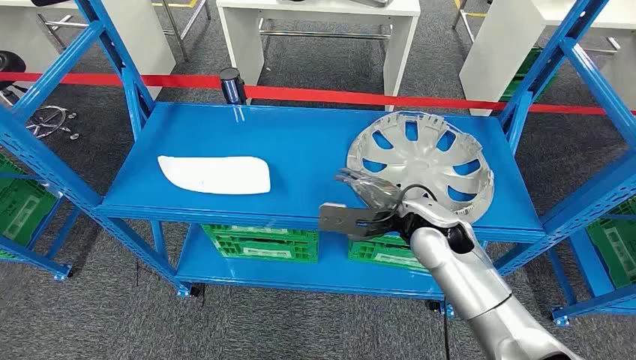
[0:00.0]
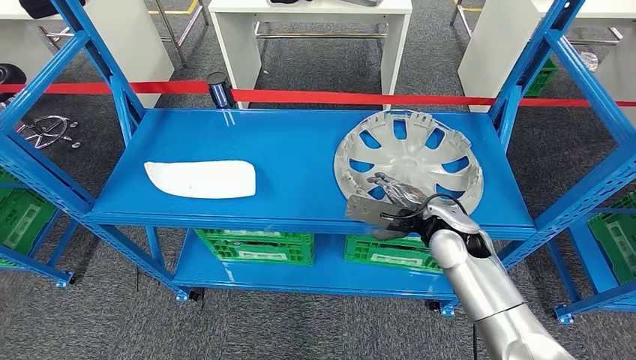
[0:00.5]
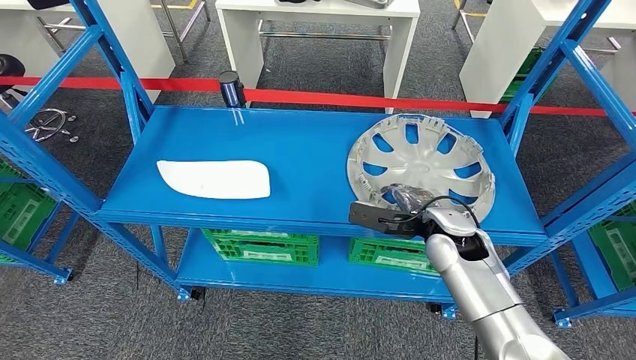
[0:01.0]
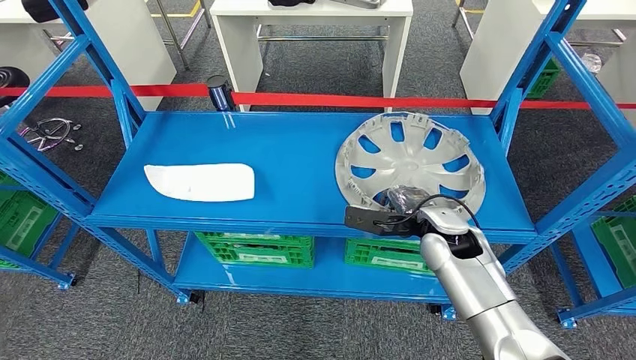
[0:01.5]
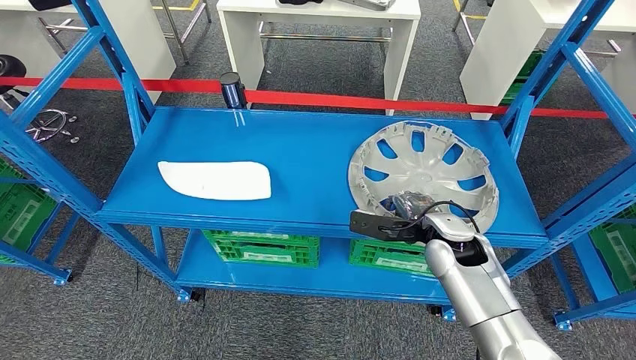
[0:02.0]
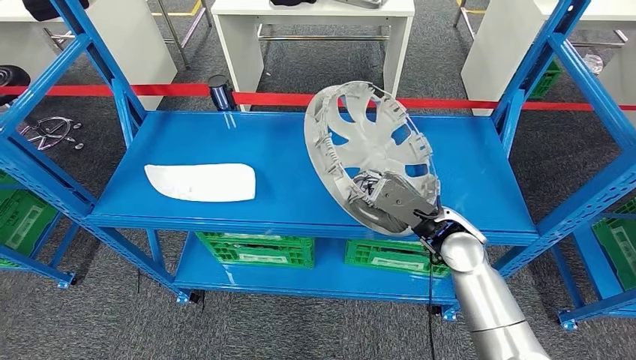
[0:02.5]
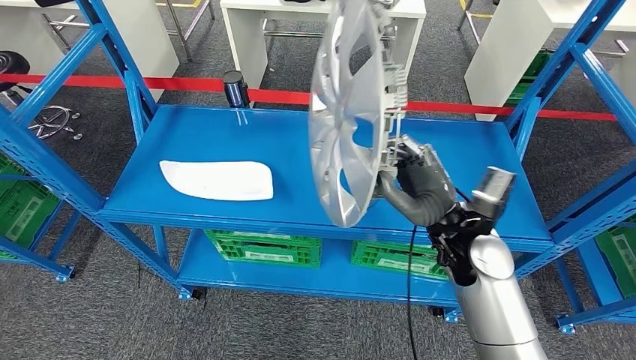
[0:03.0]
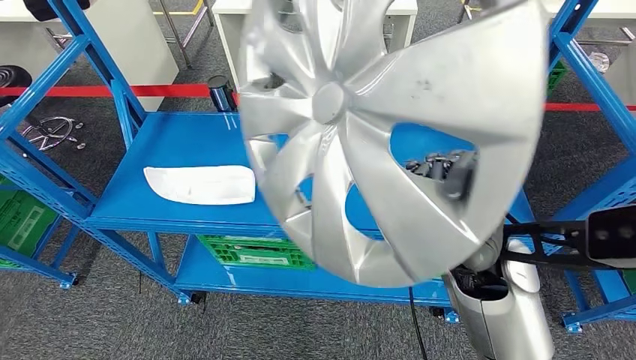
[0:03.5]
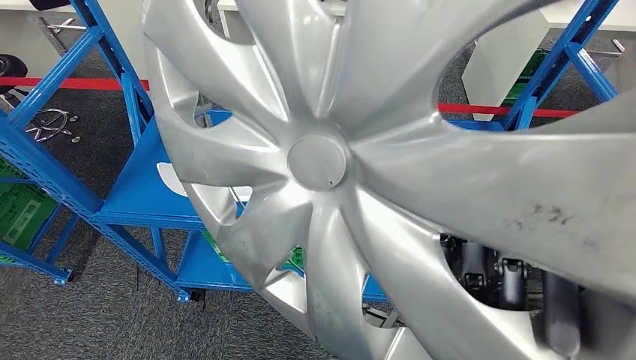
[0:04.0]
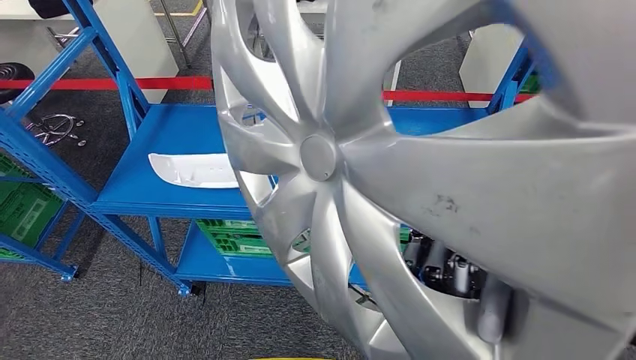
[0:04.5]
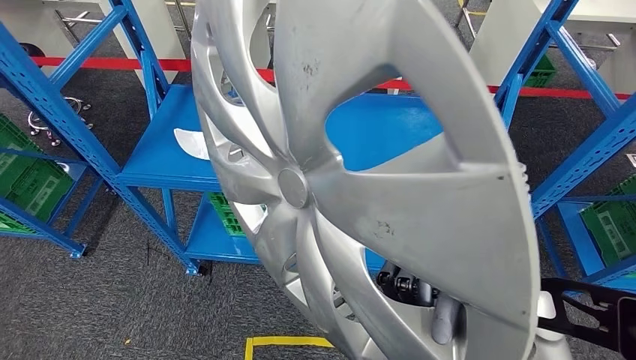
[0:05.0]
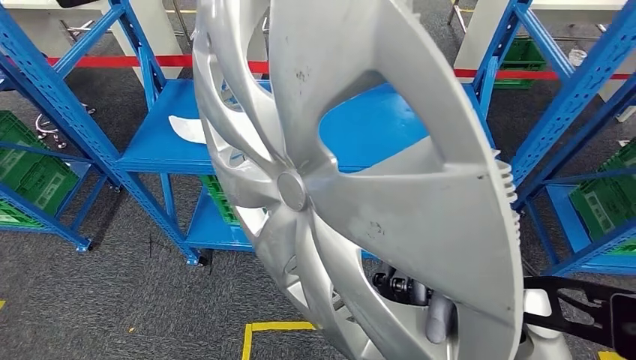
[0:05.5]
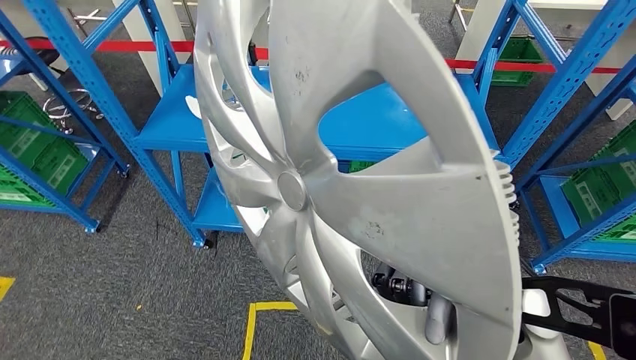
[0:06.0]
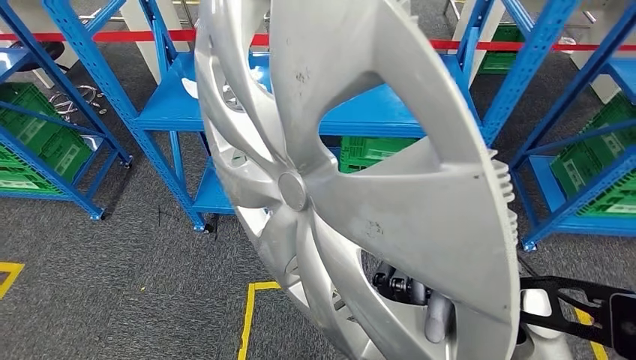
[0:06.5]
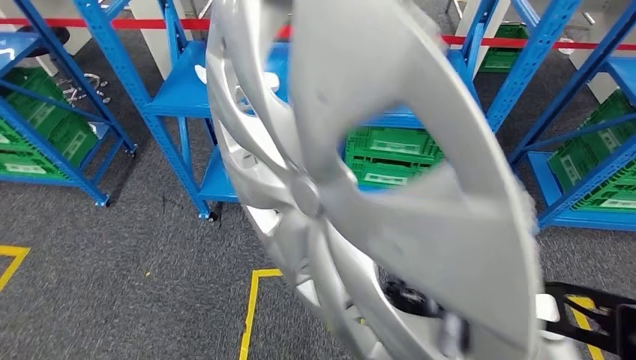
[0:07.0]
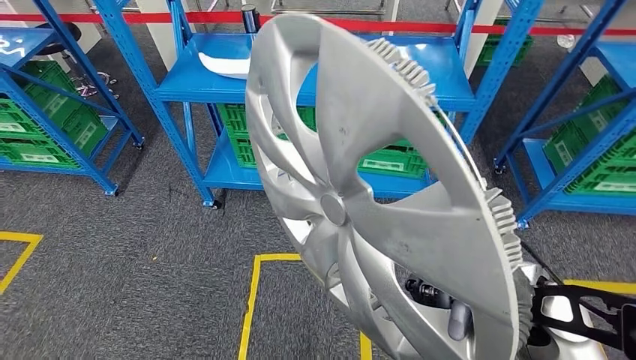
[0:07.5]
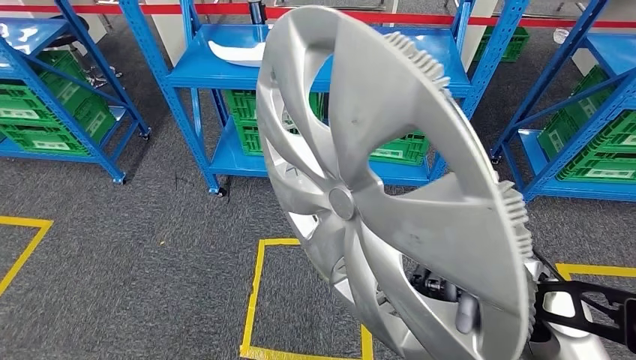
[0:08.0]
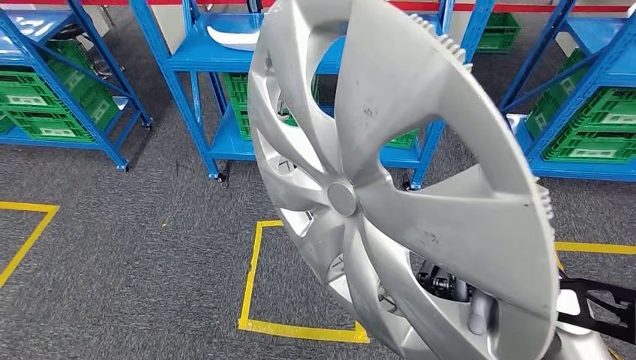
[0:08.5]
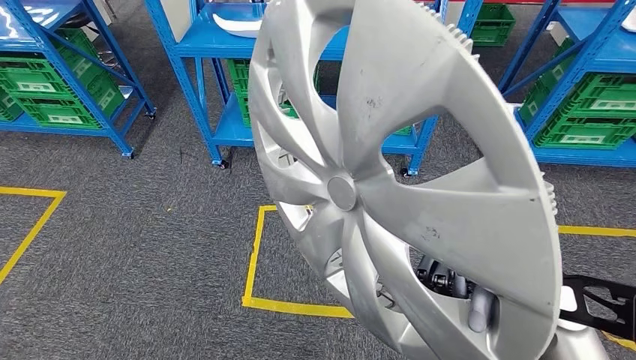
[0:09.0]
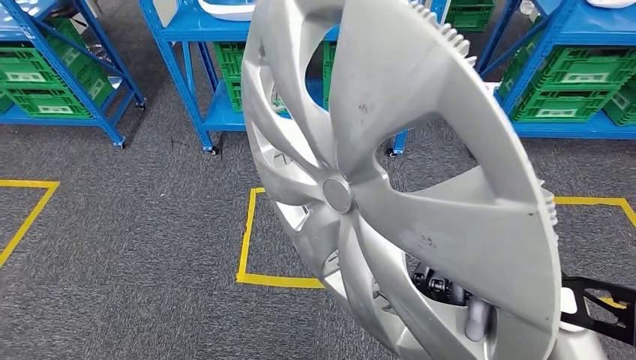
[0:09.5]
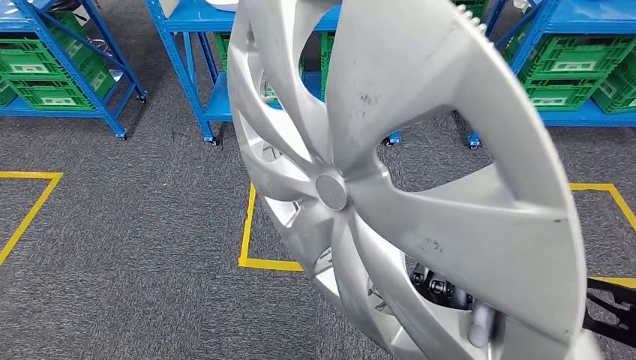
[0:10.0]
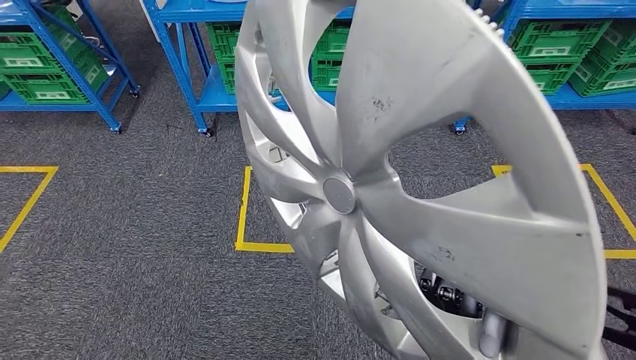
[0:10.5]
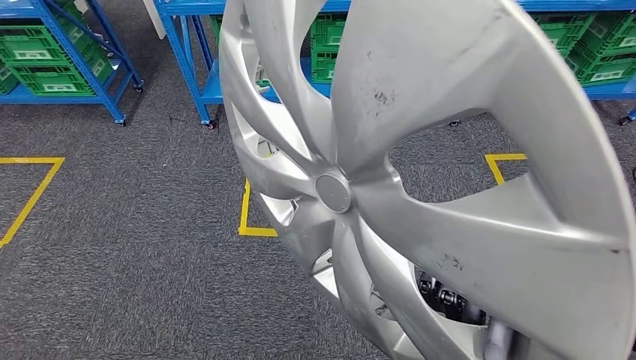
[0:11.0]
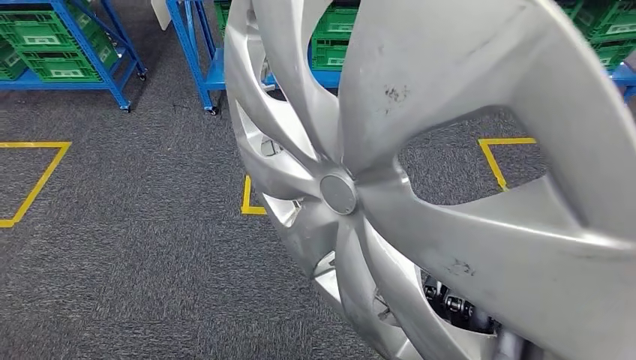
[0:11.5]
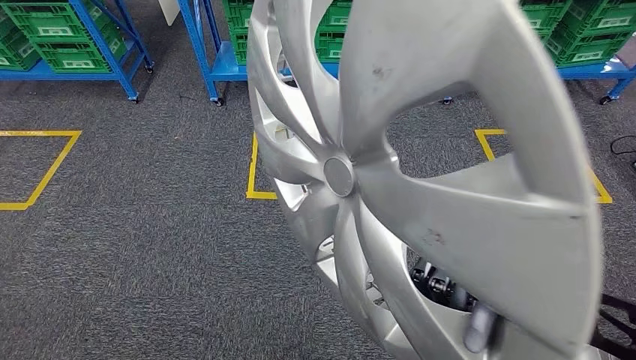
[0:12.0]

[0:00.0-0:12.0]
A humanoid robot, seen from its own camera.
Step, 0:00.0 to 0:03.0: Pick up the small parts from the shelf.

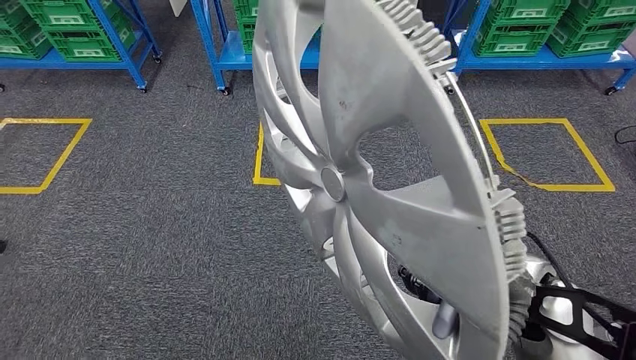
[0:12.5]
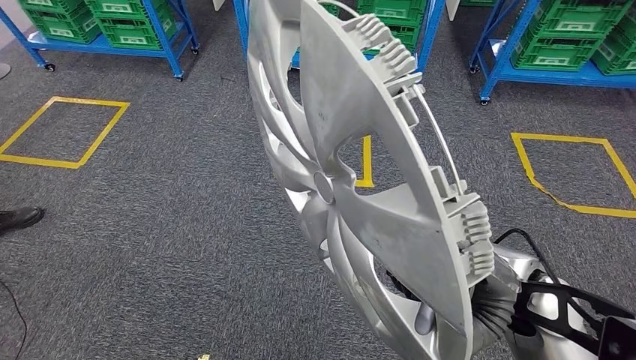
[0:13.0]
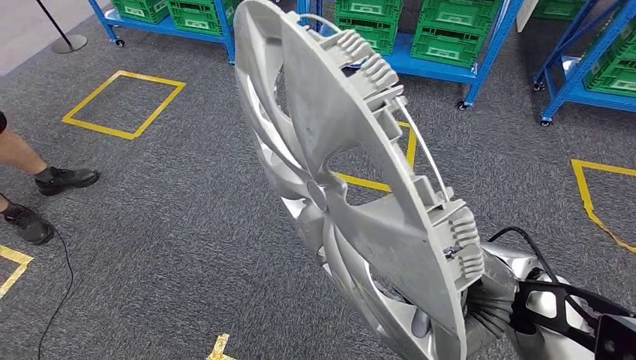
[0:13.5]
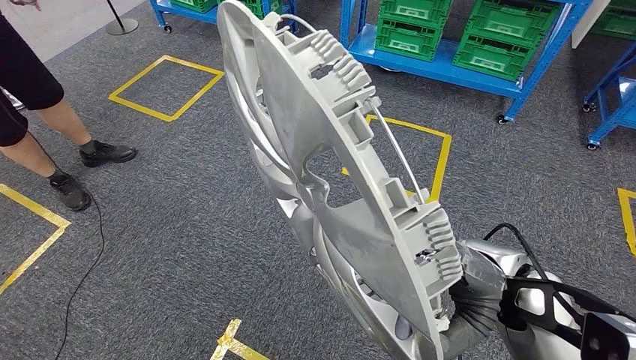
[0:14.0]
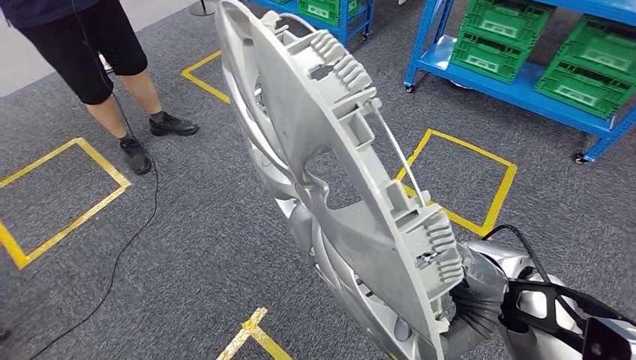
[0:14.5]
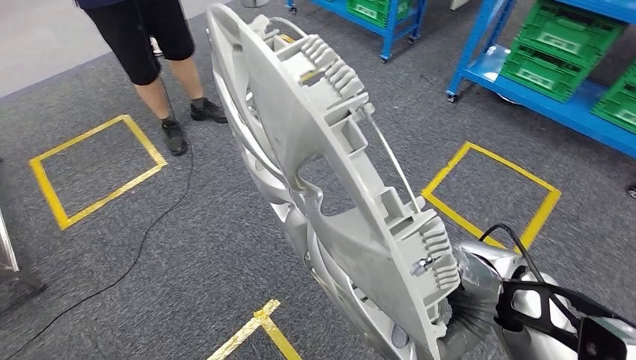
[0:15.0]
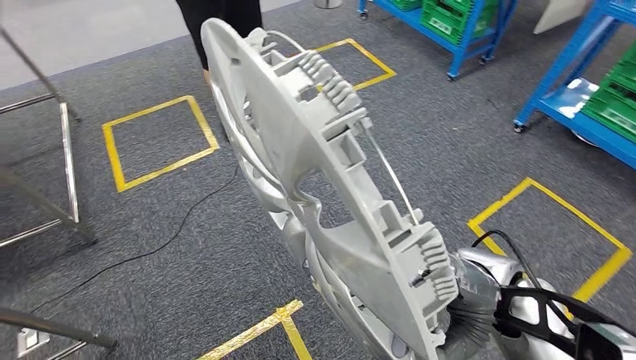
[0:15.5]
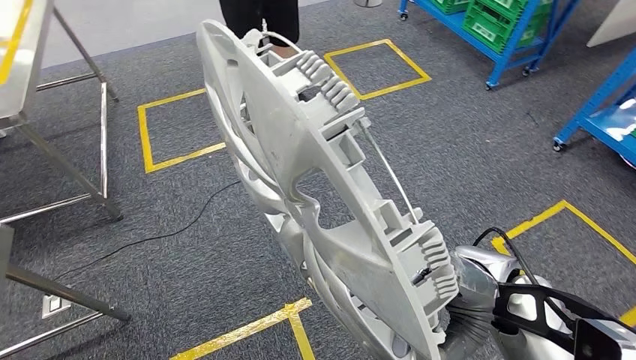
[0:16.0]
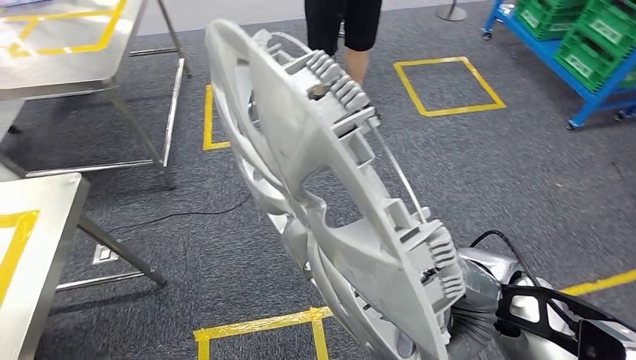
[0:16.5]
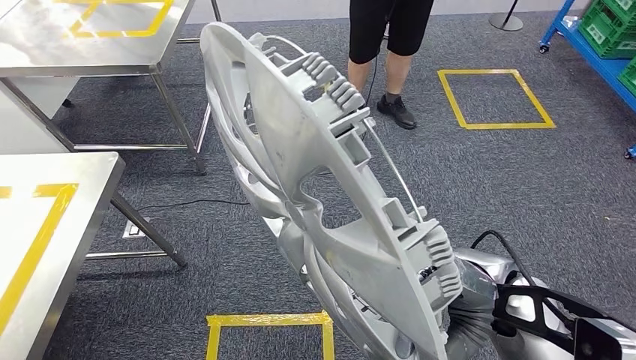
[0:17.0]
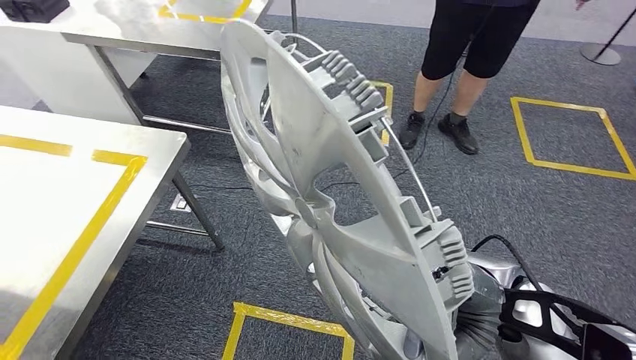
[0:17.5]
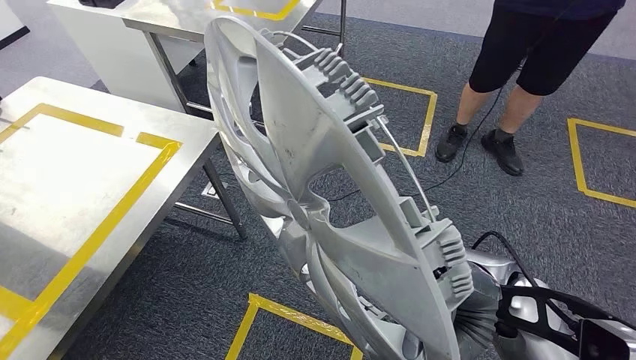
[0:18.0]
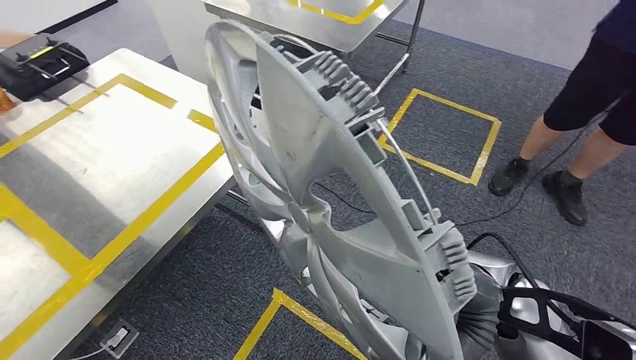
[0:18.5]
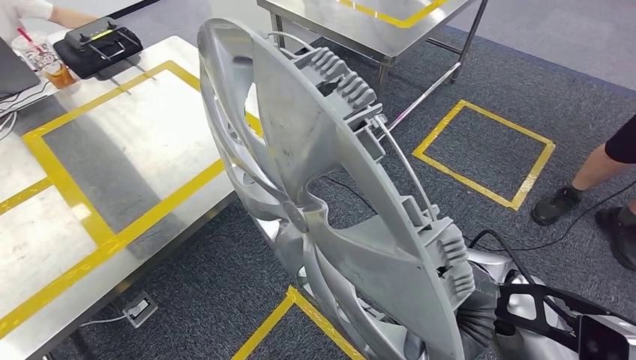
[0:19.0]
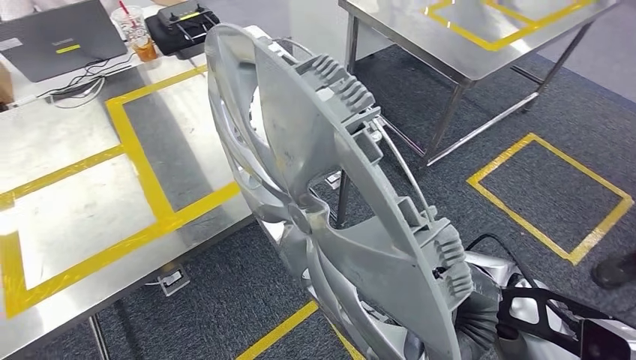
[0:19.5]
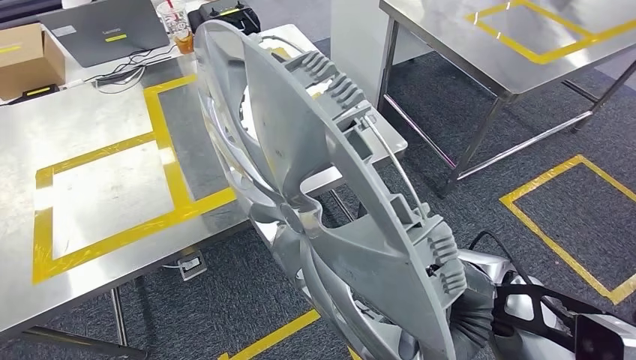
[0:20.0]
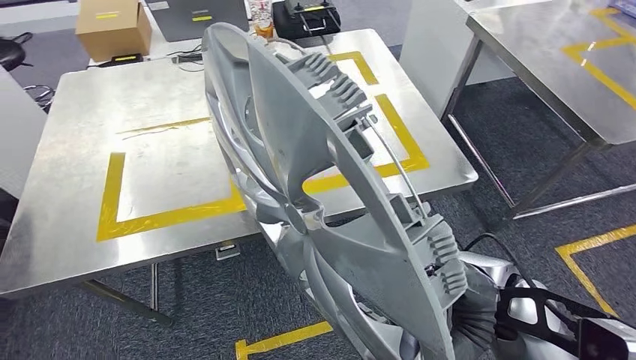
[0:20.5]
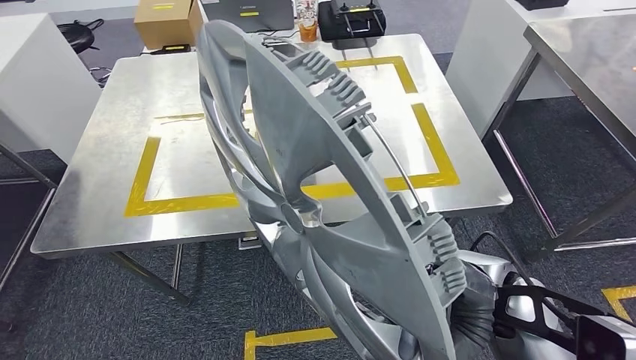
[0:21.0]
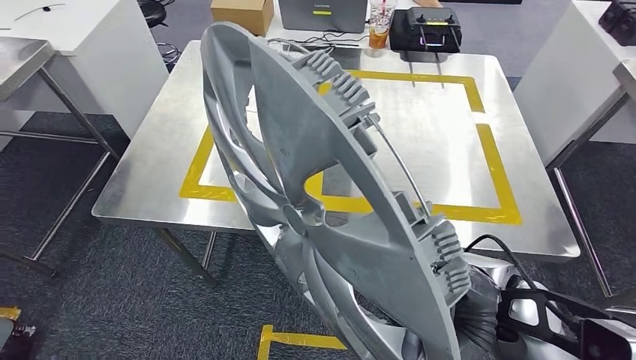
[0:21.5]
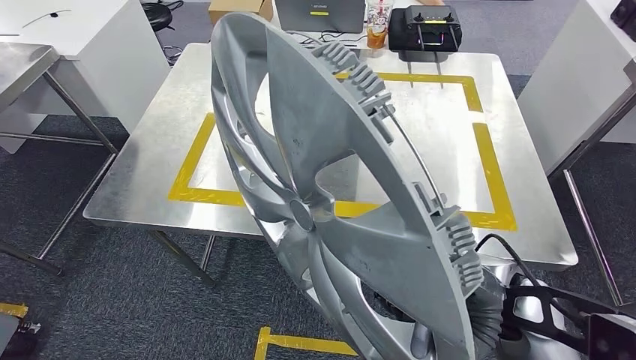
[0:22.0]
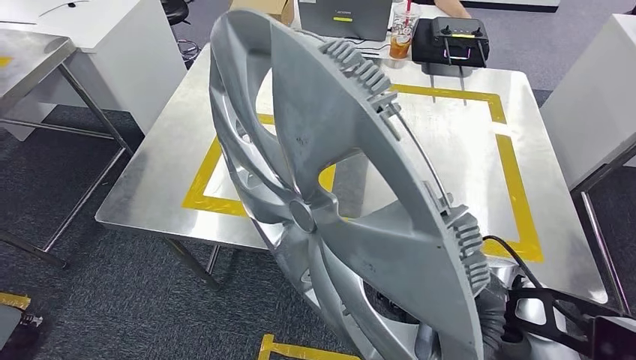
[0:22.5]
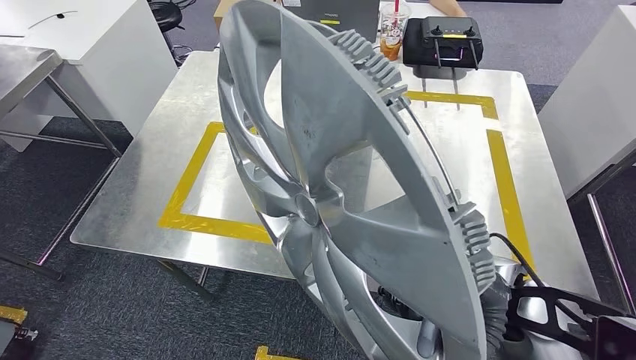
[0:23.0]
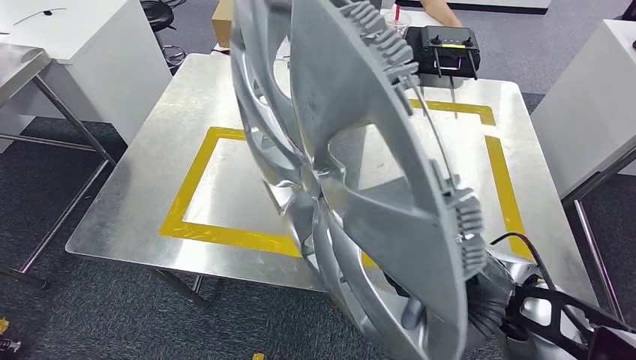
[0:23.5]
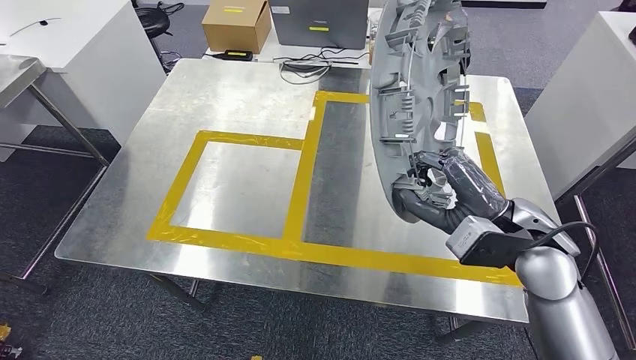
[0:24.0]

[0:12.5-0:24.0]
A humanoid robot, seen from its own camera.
Step, 0:12.5 to 0:19.5: Move the small parts to the workbench.
